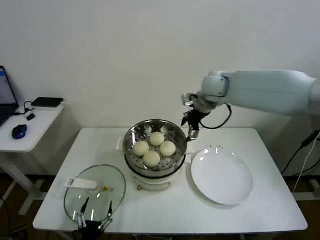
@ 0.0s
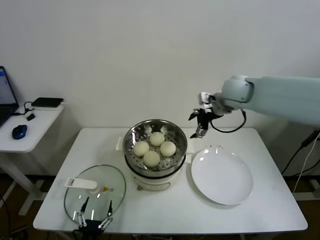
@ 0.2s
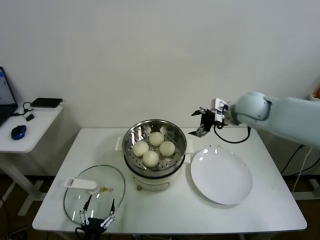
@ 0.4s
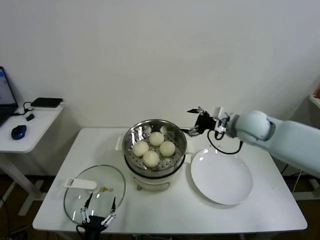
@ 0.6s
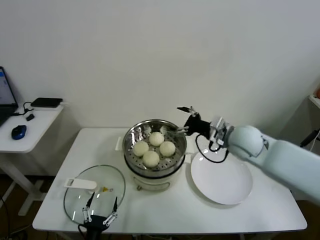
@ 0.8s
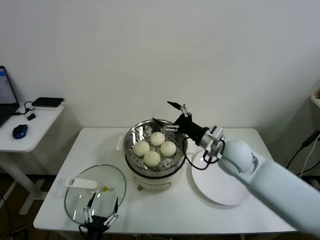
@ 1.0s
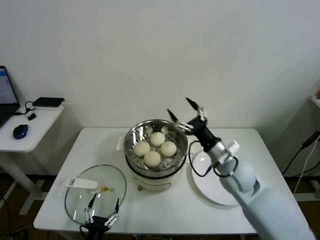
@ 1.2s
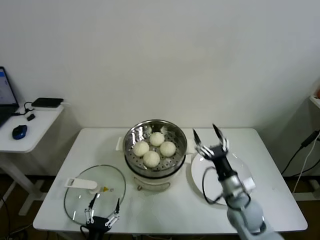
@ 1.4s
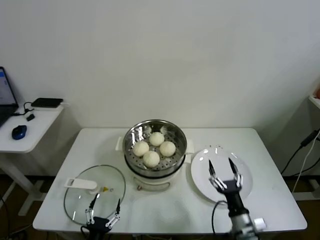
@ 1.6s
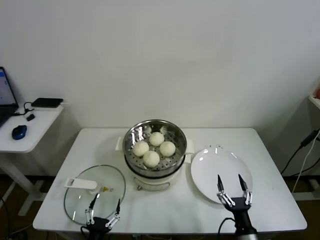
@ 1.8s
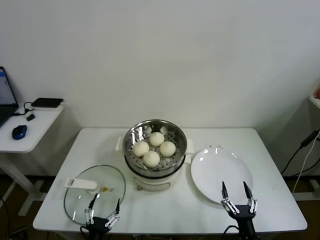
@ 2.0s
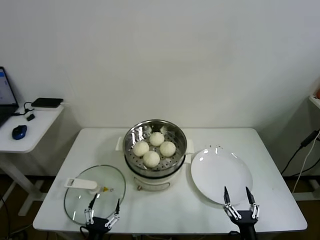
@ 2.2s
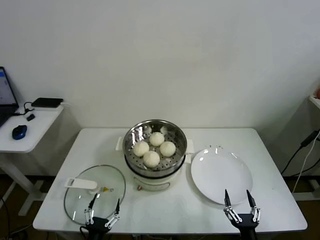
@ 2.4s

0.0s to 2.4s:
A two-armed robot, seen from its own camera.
Task of the whole recording: take steamed baozi put them in steamer.
0.0s to 1.2s: The right gripper moves backward and downward, approximately 25 cm.
1.2s to 2.4s: The right gripper is displaced backward and downward by approximately 35 cm.

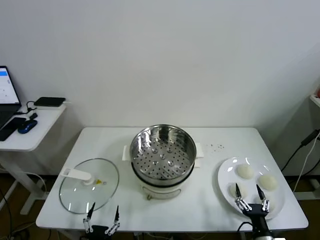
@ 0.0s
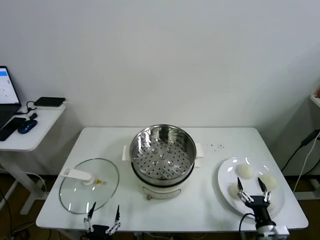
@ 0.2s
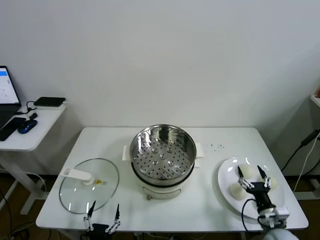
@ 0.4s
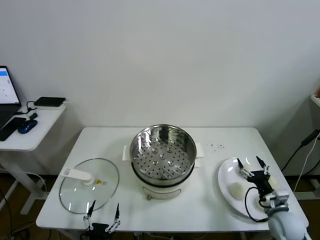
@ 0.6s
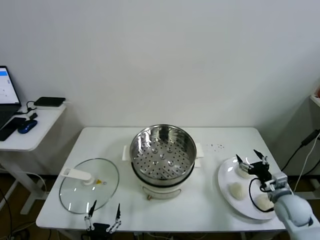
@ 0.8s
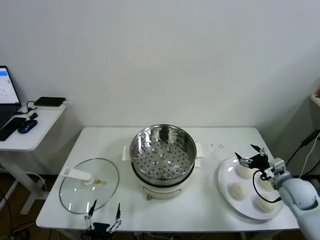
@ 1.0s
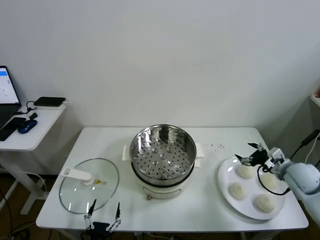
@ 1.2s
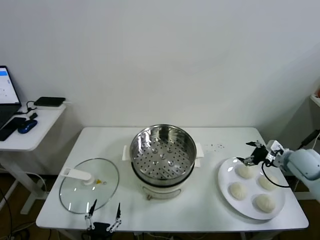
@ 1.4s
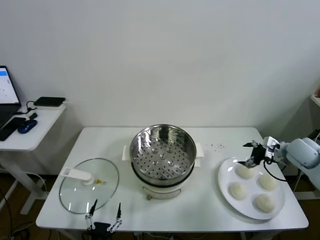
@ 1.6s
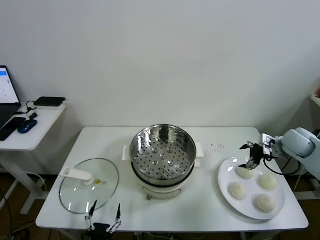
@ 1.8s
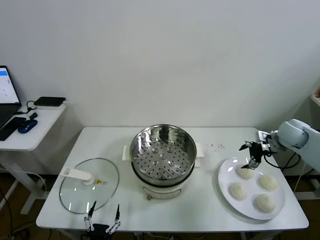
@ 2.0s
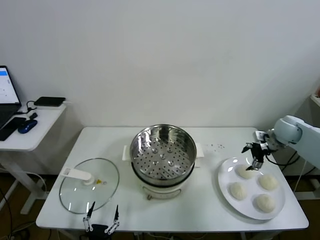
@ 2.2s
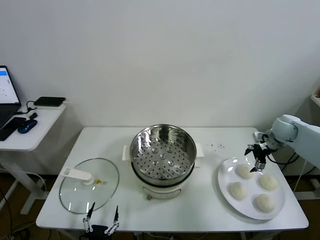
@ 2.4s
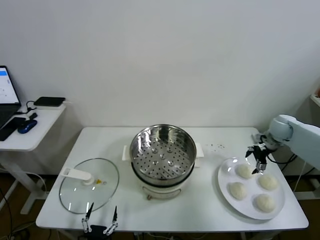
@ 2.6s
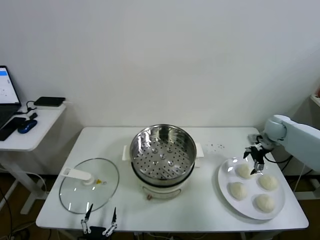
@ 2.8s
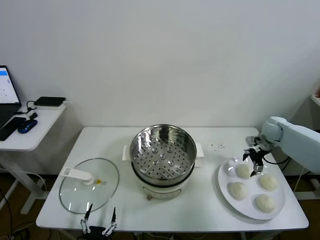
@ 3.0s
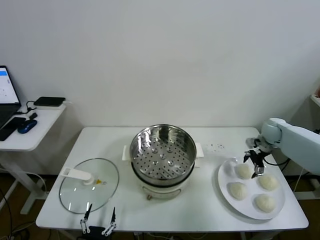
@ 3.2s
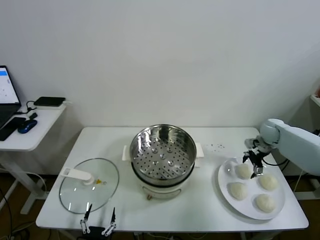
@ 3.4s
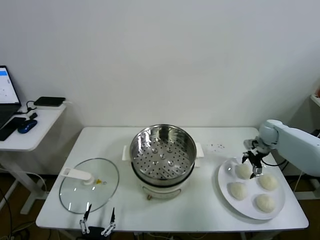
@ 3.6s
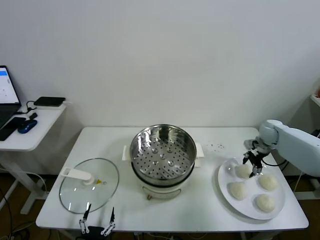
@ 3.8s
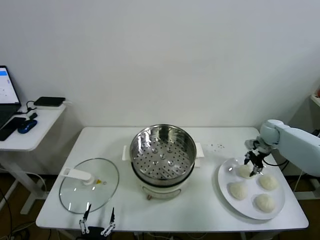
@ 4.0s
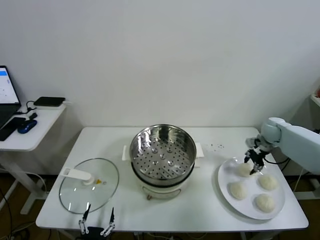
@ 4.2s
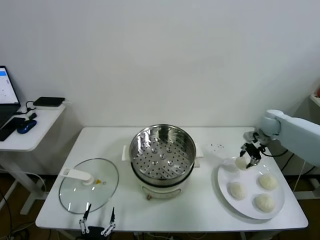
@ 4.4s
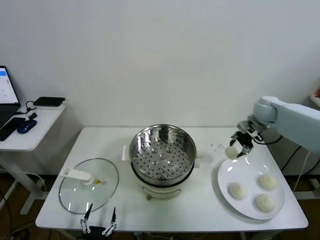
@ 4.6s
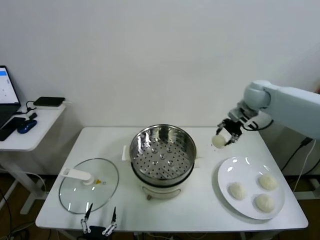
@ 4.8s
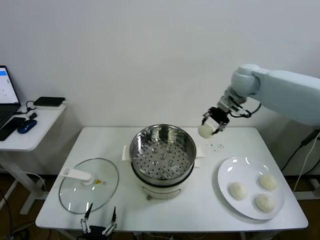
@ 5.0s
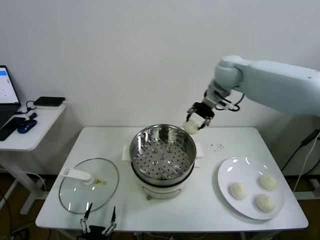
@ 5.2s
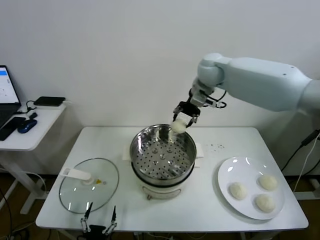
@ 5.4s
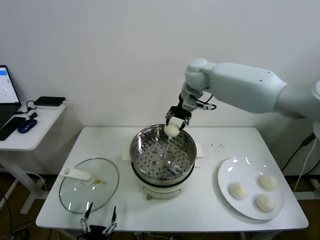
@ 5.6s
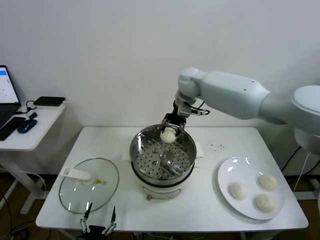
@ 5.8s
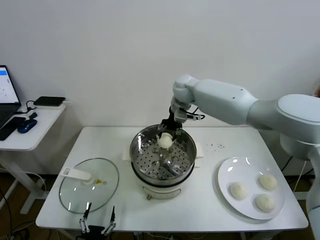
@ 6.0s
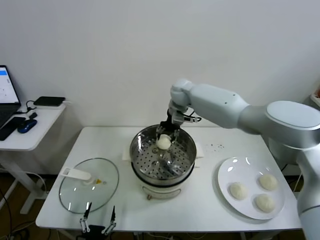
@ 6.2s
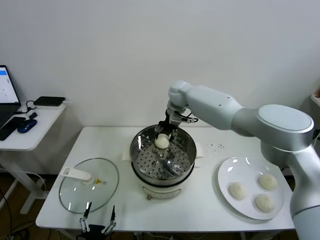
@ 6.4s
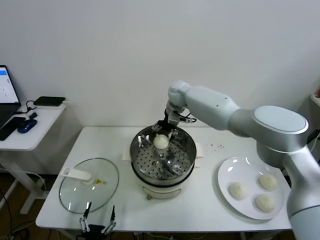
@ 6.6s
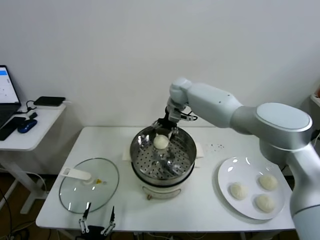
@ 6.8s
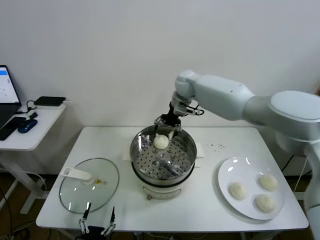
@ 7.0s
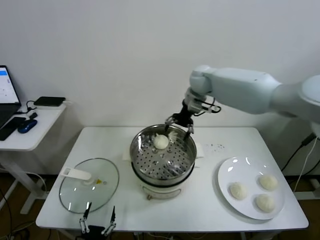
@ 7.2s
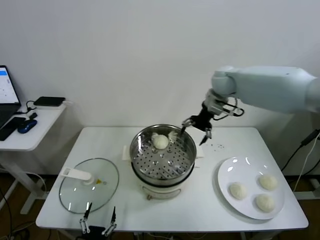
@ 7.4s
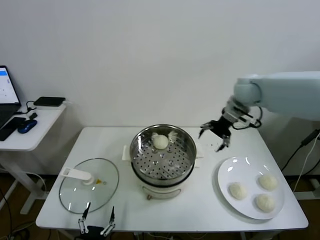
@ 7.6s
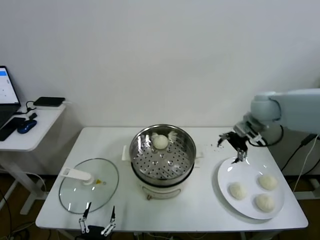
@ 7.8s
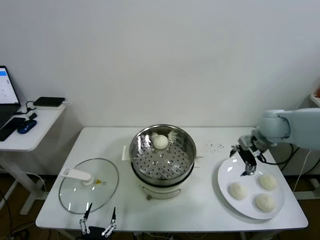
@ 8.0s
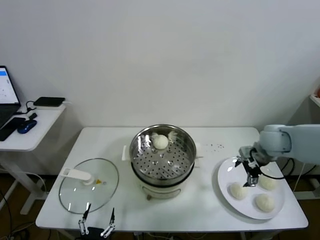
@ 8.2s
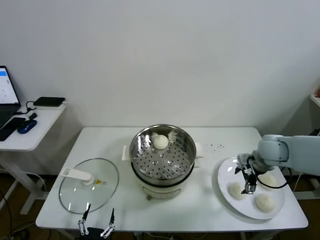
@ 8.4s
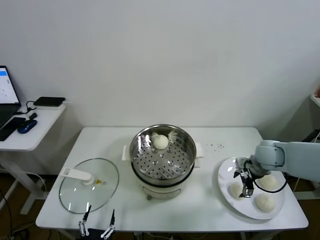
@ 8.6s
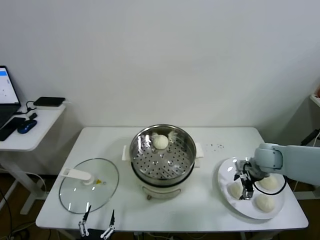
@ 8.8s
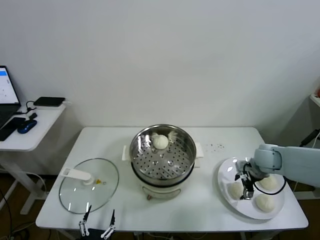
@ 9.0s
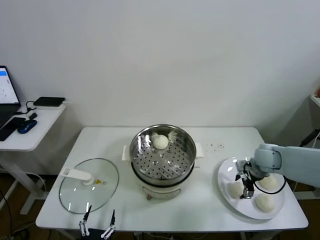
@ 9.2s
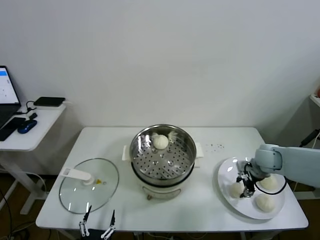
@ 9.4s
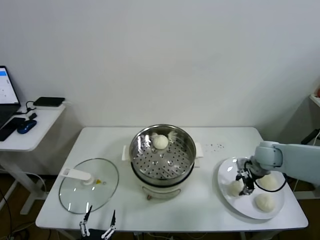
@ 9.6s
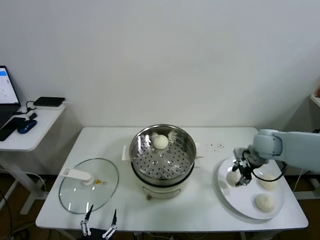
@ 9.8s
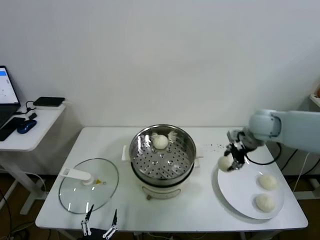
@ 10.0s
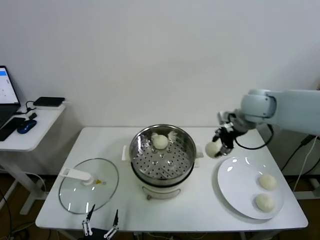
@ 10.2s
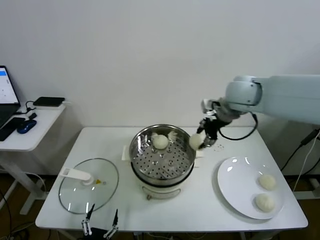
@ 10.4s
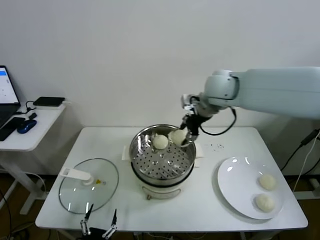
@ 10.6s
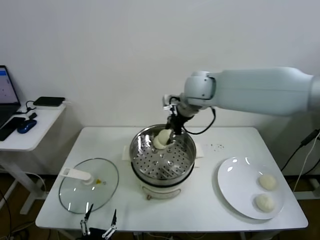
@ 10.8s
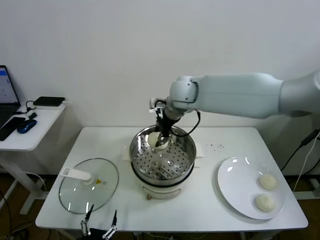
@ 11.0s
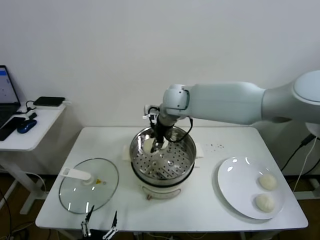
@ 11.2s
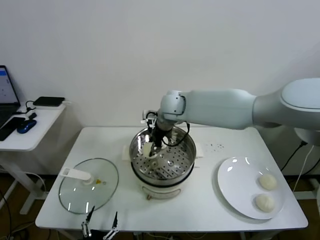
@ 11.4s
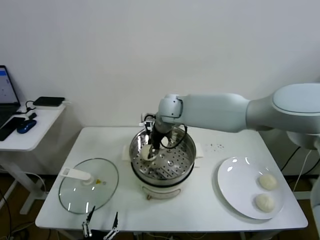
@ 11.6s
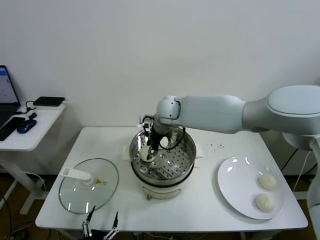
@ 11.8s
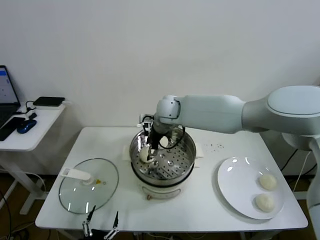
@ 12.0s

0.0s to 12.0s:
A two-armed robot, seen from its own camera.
Task of the whole recording: take steamed baozi put them in steamer.
Step, 0.0s to 4.0s: Grasp the baozi in the plate with right gripper.
Step, 4.2s to 6.6s: Place the baozi on the steamer with right gripper.
Step, 6.8s to 9.6s: Grasp the baozi in the plate with right gripper.
1.6s to 3.0s: The right gripper travels forward by some 10 cm.
3.0s to 4.4s: The right gripper is displaced upward by some 5 cm, and closes up.
4.4s to 6.0s: The right gripper travels to the left by roughly 30 cm.
6.0s to 7.6s: The right gripper goes approximately 20 cm to the right, and opens its fingers.
7.6s to 9.0s: The right gripper heads downward and backward, covering approximately 25 cm.
9.0s to 10.4s: The right gripper is displaced upward and to the left by some 30 cm, and closes up.
10.4s to 12.0s: The right gripper goes approximately 20 cm to the left and downward, and opens its fingers.

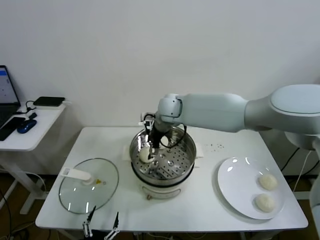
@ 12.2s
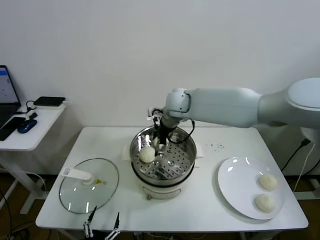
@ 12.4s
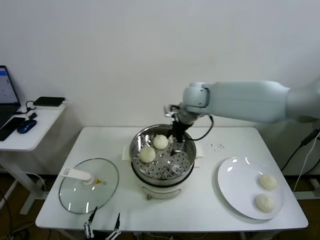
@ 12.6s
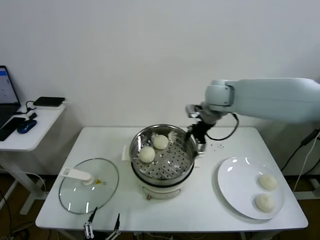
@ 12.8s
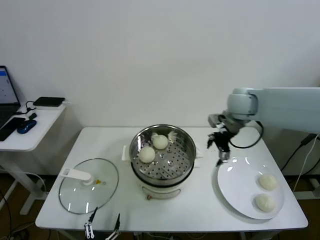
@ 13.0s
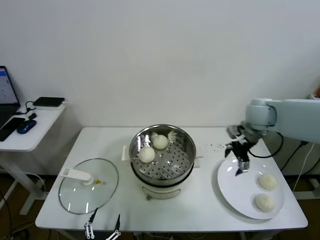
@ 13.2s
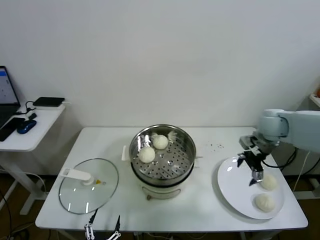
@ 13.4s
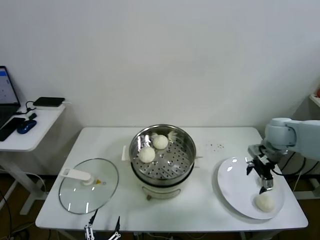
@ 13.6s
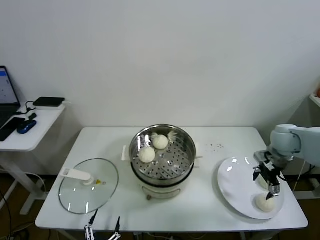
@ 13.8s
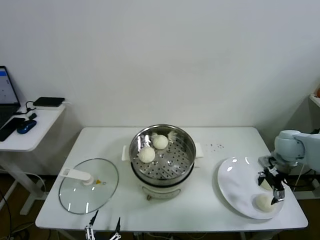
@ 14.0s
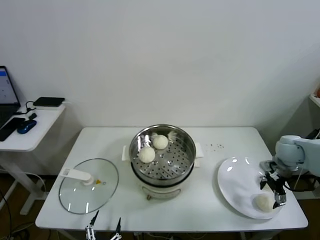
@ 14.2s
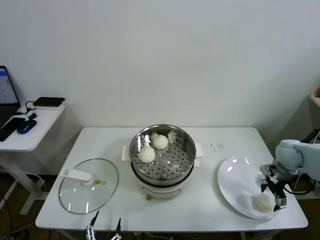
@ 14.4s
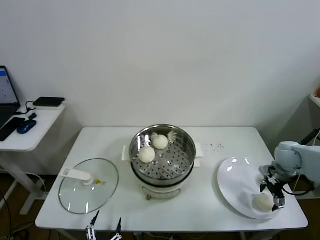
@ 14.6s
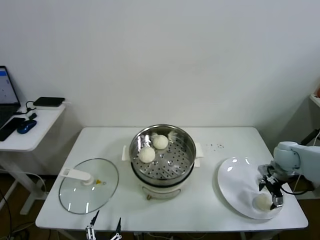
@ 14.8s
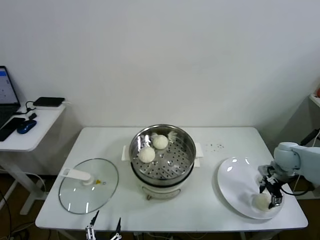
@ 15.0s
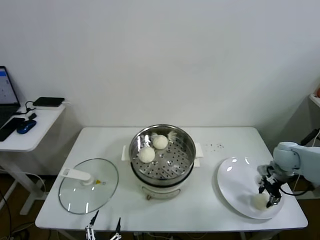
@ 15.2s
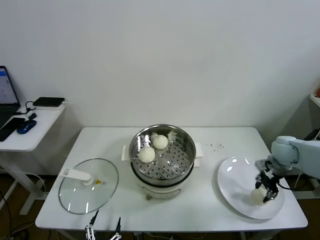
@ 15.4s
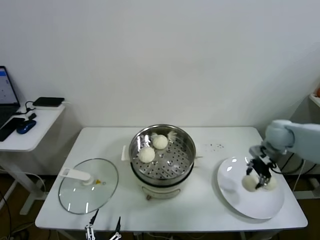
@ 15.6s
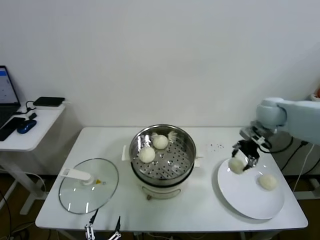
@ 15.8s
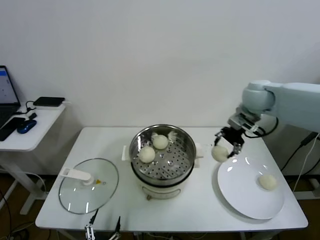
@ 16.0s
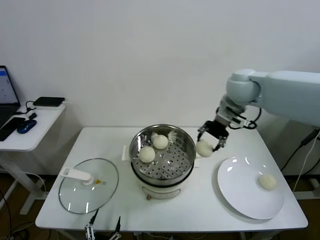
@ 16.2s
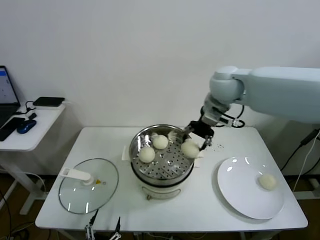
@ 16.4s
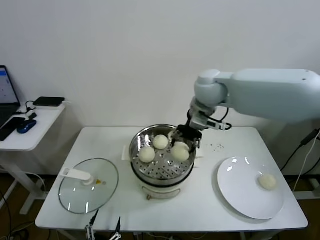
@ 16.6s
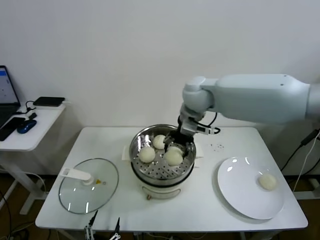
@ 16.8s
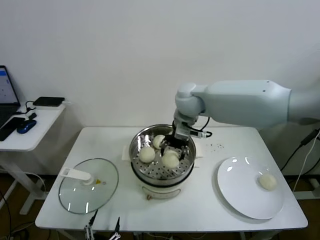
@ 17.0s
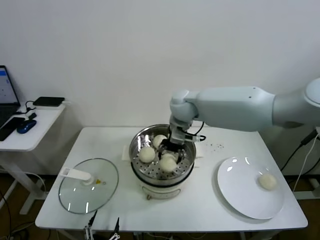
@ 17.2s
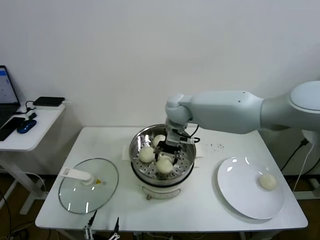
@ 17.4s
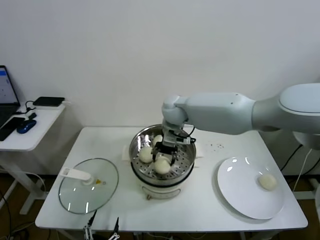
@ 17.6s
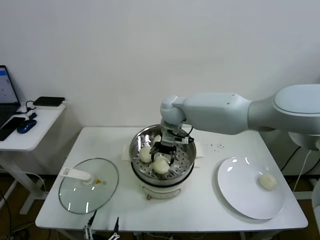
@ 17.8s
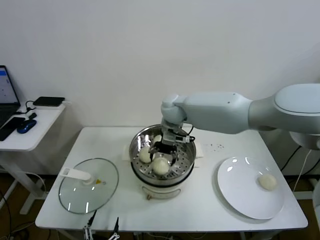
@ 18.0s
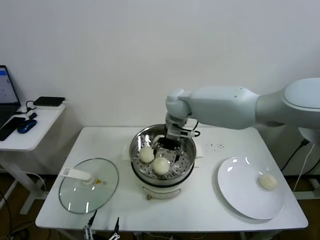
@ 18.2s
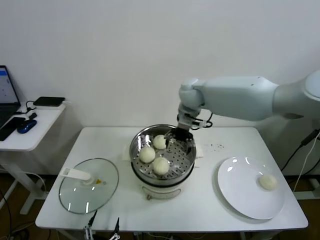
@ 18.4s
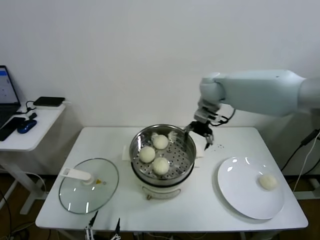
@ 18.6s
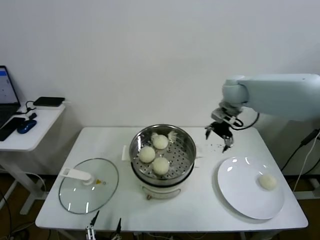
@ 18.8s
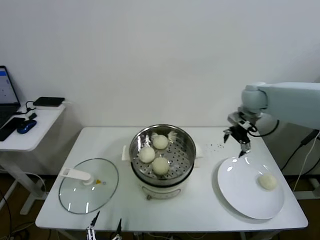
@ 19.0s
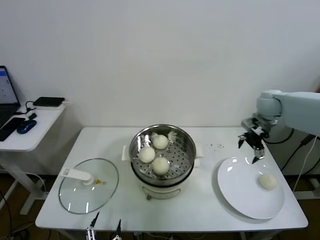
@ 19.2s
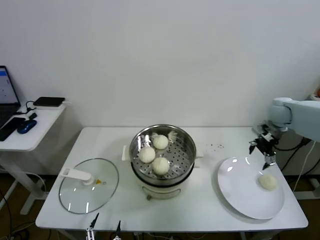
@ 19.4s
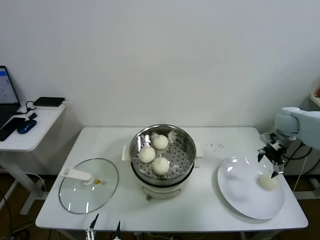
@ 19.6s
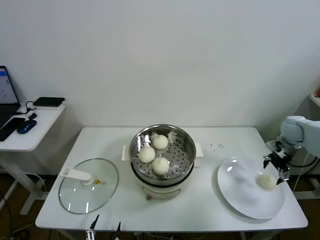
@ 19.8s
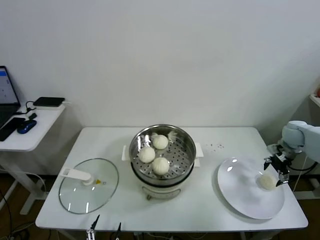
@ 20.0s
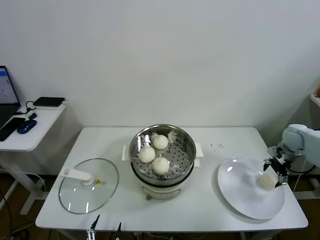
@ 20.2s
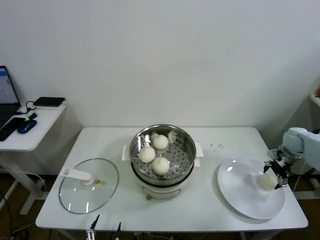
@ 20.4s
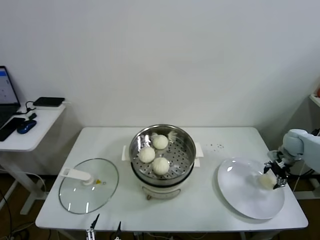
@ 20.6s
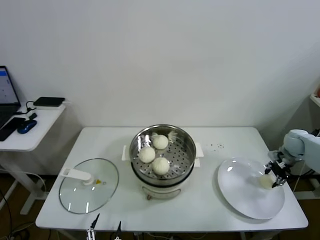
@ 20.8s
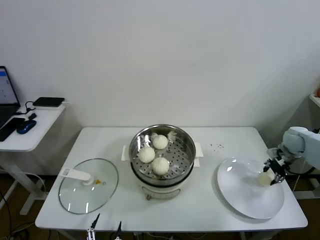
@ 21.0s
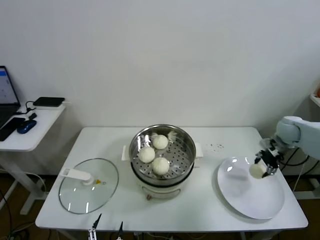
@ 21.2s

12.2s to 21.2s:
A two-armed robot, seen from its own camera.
Task of the whole recording: take steamed baozi put them in steamer.
Step, 12.2s to 15.2s: Grasp the baozi in the plate with right gripper.
Step, 15.4s to 18.0s: Place the baozi on the steamer with right gripper.
Step, 18.4s to 20.8s: Grasp the baozi in the plate with right gripper.
12.2s to 13.8s: The right gripper goes about 40 cm to the right.
13.8s to 15.2s: The right gripper is displaced downward by some 10 cm, and closes.
15.2s to 16.6s: The right gripper shifts about 40 cm to the left and upward.
16.6s to 18.2s: The right gripper goes roughly 10 cm downward and to the left, and opens its fingers.
18.2s to 19.8s: The right gripper travels to the right by roughly 40 cm.
19.8s to 21.2s: The right gripper closes its fingers.
